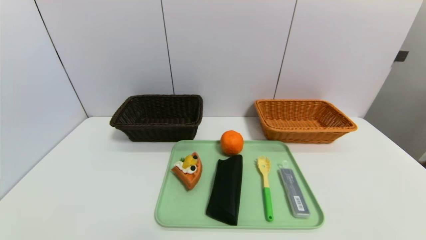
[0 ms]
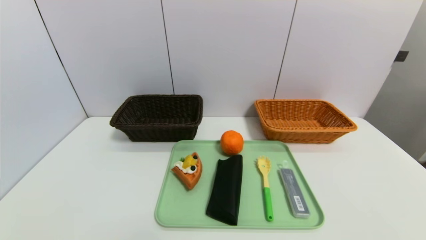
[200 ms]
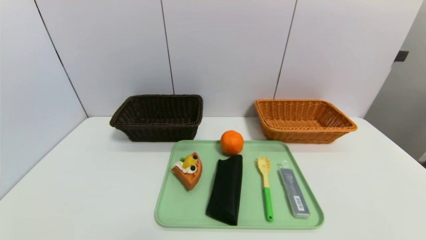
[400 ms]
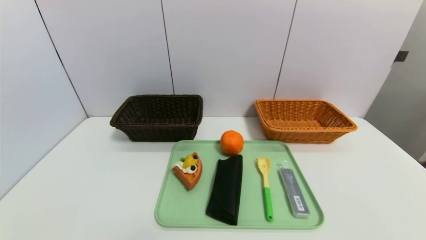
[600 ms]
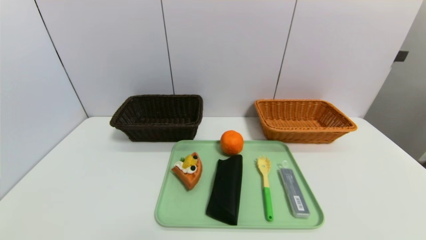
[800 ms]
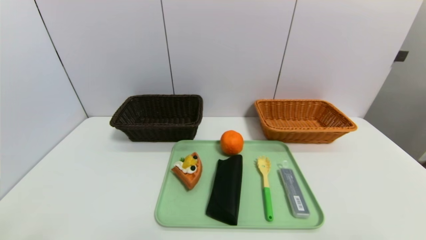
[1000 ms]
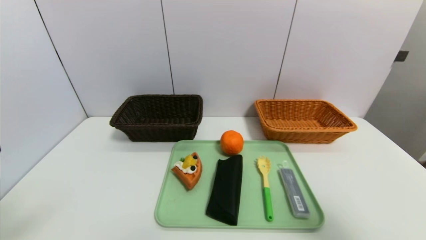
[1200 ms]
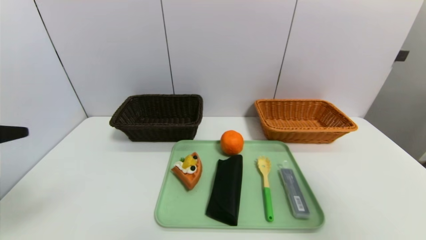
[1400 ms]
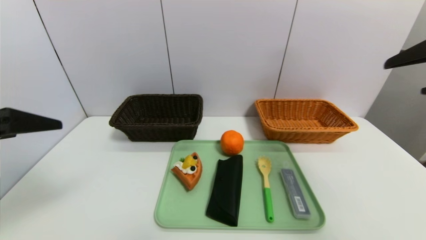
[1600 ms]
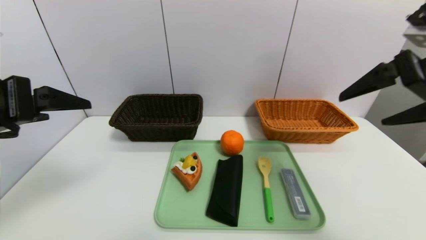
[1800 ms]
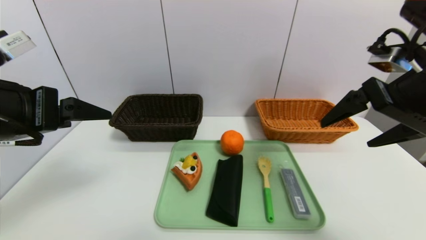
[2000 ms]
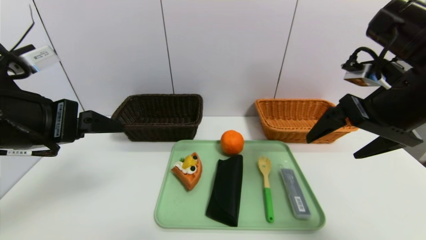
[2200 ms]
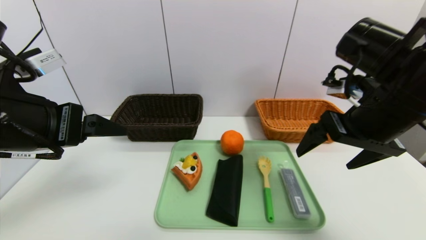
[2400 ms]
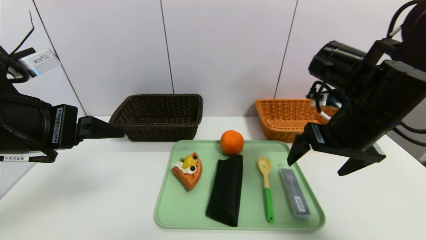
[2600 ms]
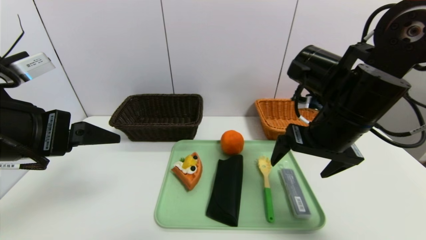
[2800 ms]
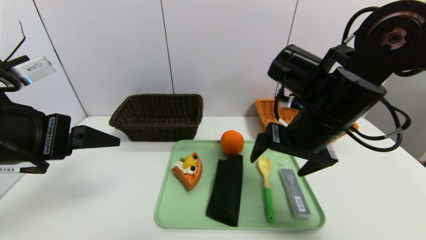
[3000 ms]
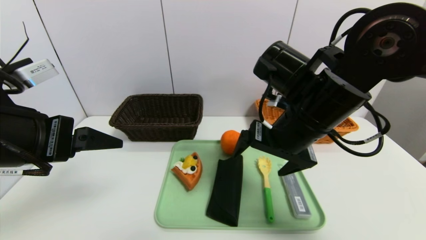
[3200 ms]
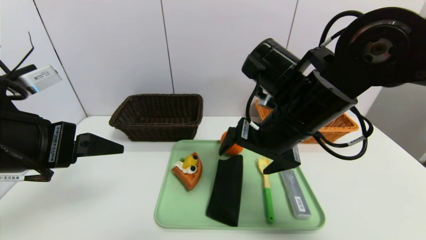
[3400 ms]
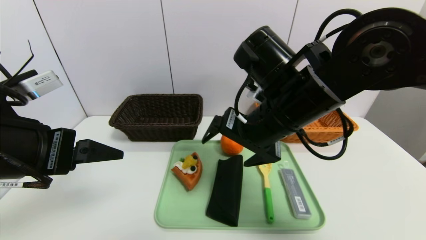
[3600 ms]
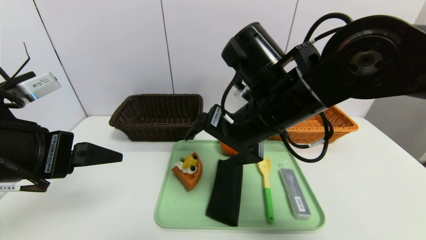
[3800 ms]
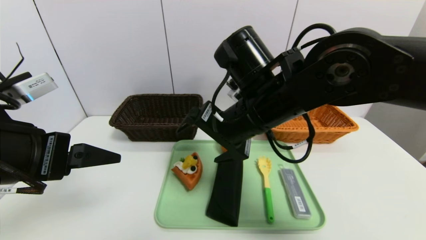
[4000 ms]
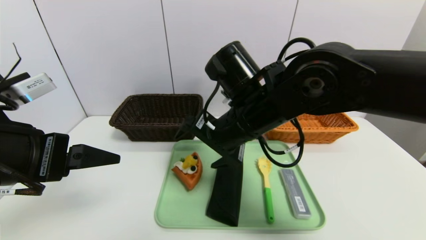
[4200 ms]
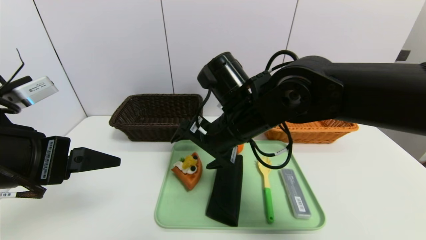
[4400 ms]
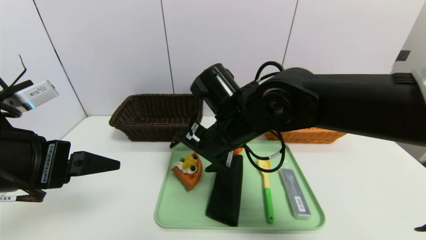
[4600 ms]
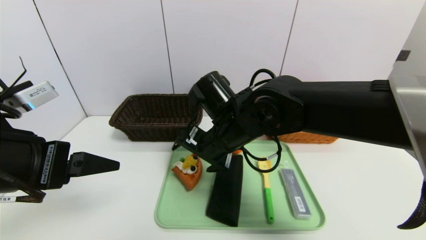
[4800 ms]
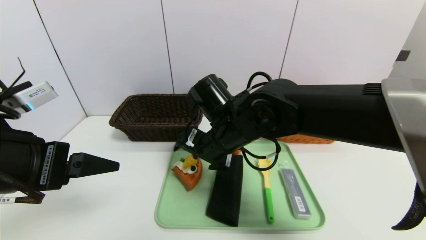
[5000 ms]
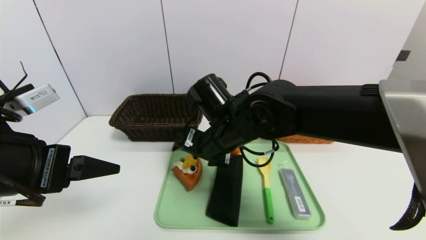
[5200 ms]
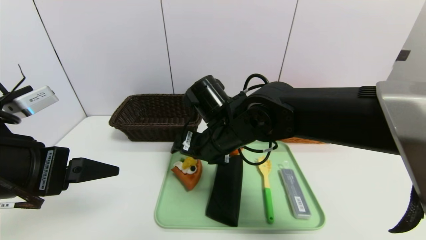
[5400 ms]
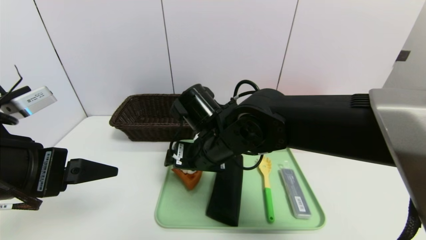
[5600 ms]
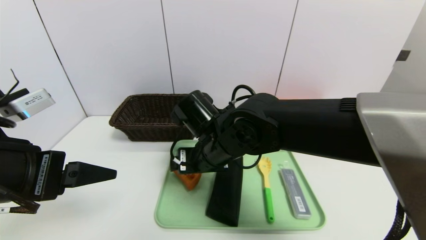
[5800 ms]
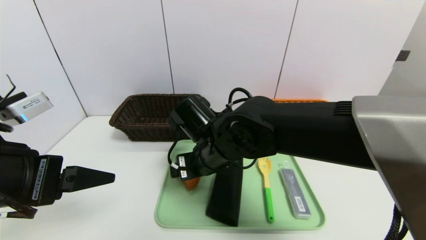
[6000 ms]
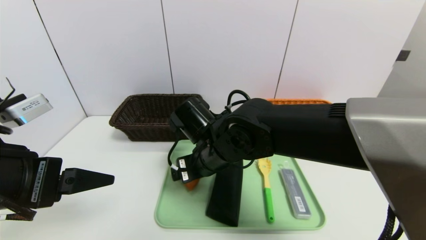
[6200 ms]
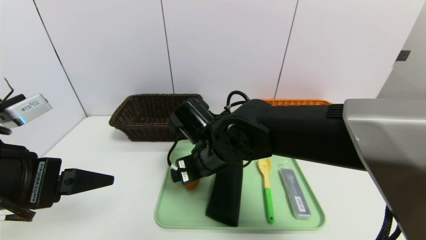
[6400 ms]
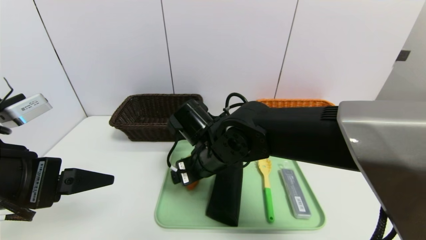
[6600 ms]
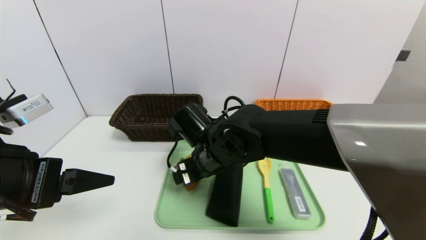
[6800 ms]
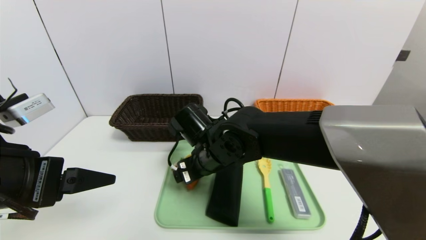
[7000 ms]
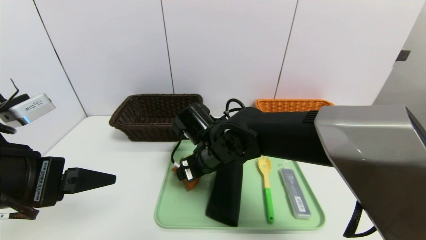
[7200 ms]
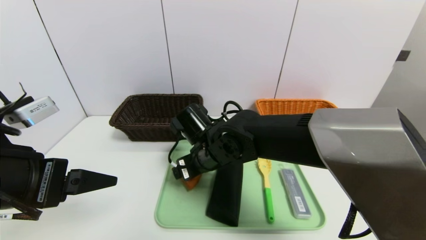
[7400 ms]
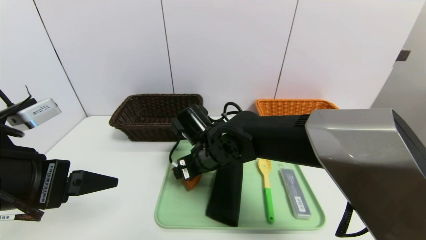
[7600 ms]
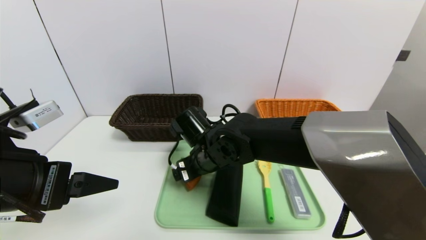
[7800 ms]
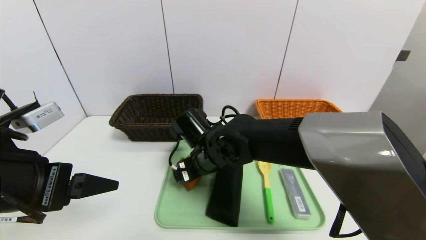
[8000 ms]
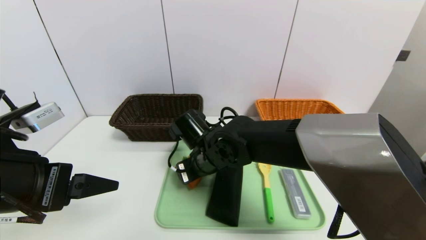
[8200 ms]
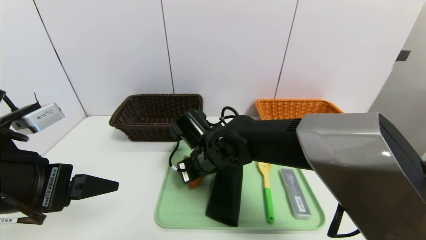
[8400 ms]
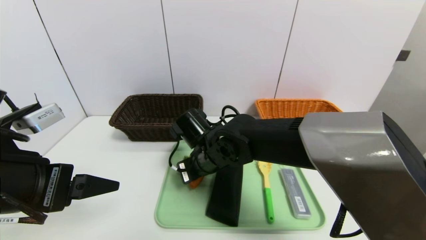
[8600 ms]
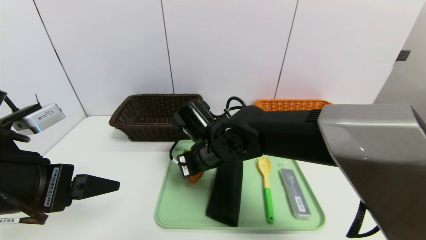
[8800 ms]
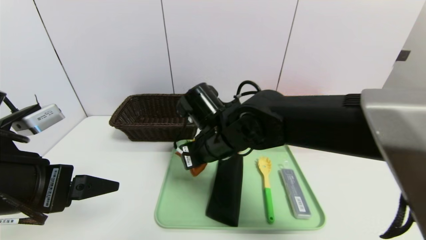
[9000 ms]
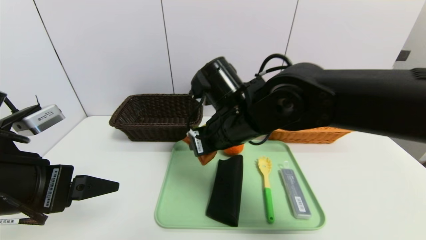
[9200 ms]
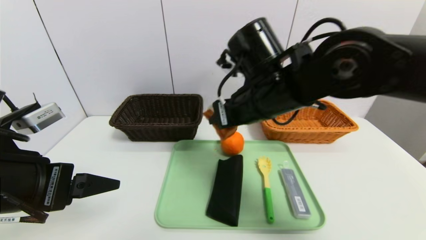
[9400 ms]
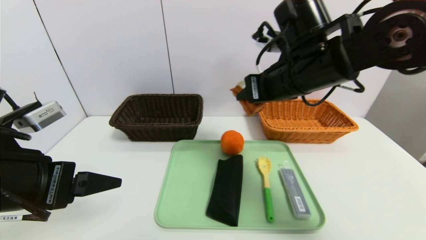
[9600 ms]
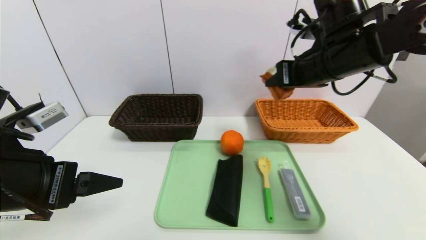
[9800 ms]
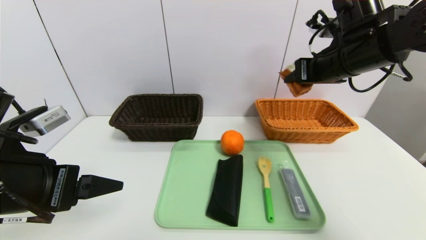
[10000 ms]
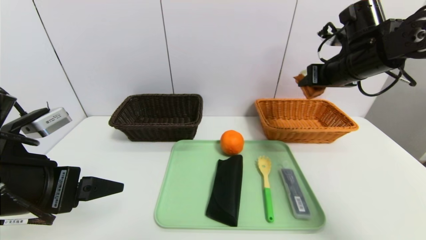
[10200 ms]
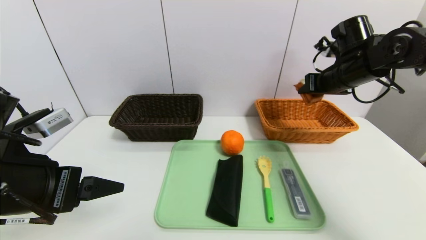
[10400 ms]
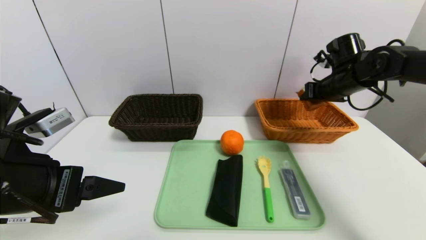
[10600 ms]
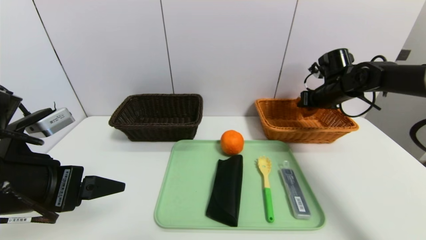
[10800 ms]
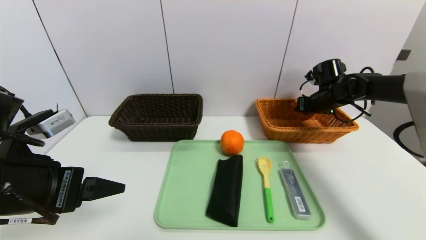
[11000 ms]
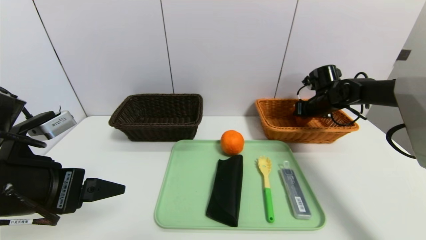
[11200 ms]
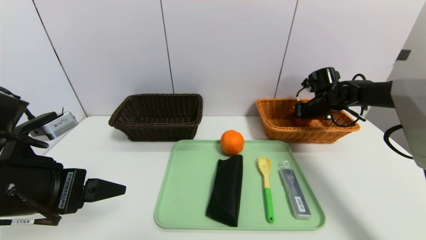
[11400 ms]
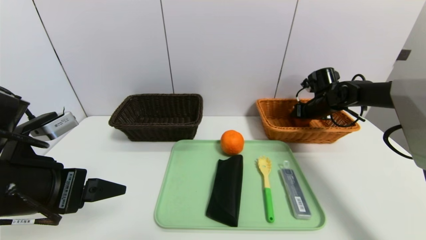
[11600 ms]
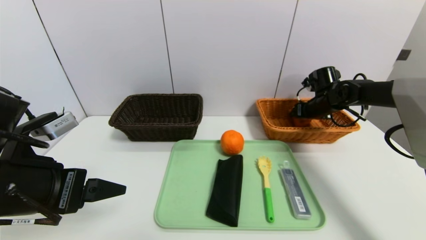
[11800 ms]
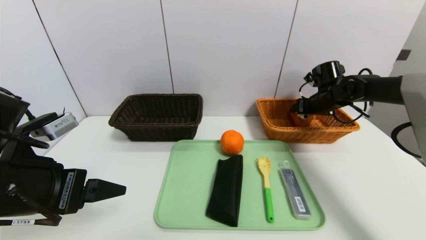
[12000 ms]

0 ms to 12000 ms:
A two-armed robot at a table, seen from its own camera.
Task of the whole recording: place the food in the right basket with the right gripper, and place the non food items in the left basket with the left gripper.
0 ms to 1600 ms: Both grippers move upward and forward, approximately 30 cm.
1600 ms to 3000 ms: The right gripper shifts about 20 cm to the left, downward and forward; the left gripper moves approximately 5 cm.
3000 ms to 4400 ms: The right gripper goes about 10 cm to the left.
4400 ms to 6000 ms: The right gripper heads downward, covering about 5 cm.
6000 ms to 7600 ms: The grippers make only small movements.
7600 ms to 9000 ms: The right gripper ends up roughly 5 cm from where it was, and closes up.
9000 ms to 10400 ms: The right gripper travels to the right by some 30 cm.
10400 ms to 12000 ms: The right gripper shifts approximately 15 cm downward and forward, and opens up.

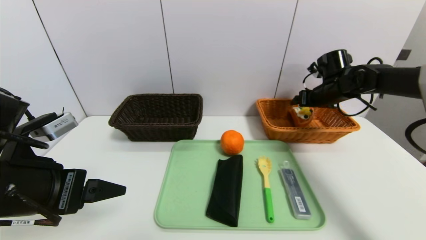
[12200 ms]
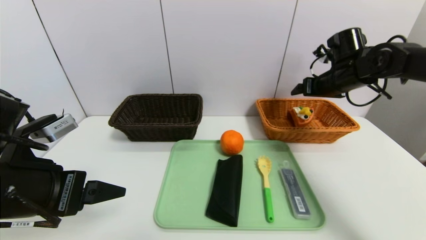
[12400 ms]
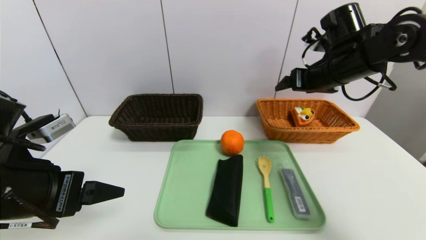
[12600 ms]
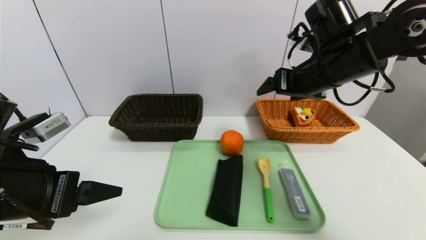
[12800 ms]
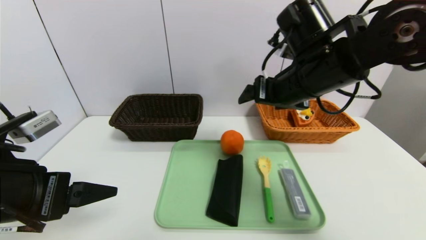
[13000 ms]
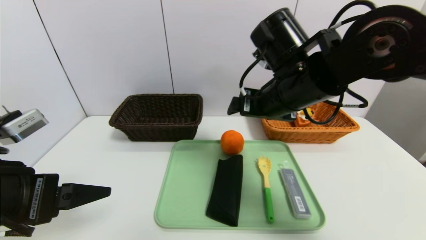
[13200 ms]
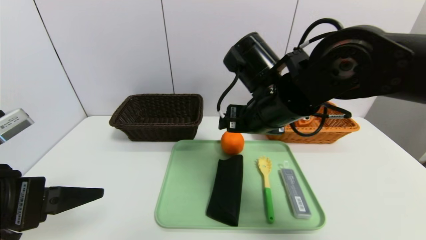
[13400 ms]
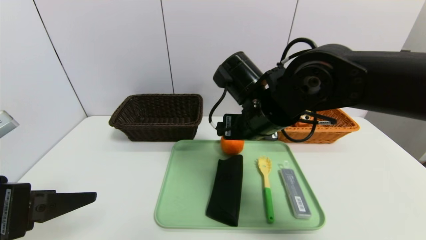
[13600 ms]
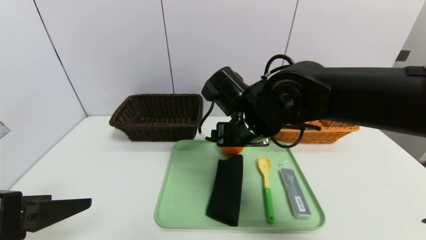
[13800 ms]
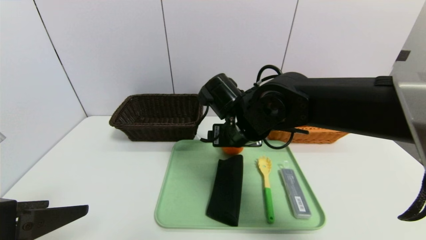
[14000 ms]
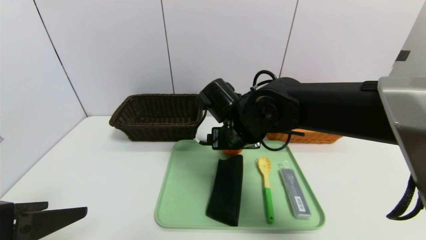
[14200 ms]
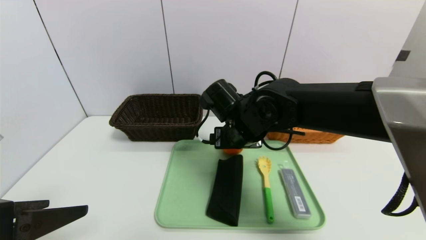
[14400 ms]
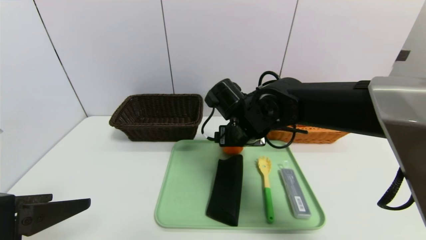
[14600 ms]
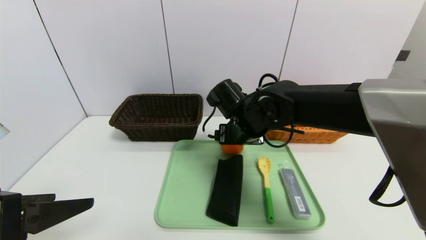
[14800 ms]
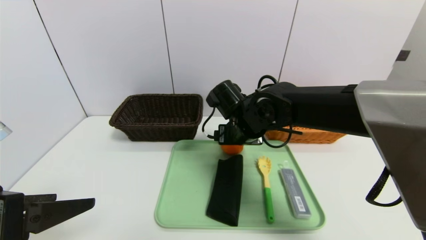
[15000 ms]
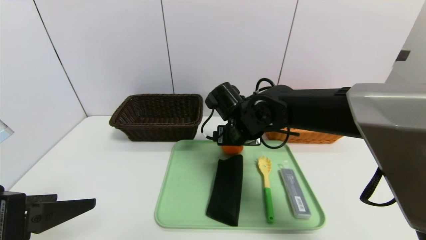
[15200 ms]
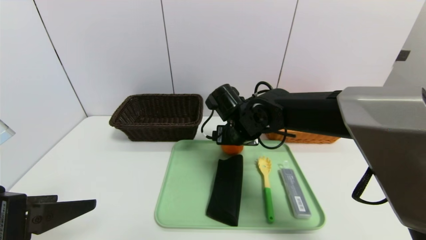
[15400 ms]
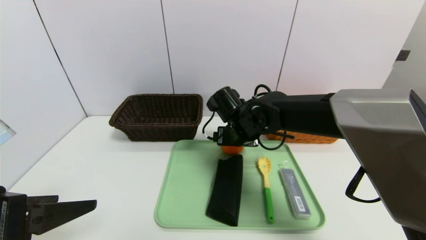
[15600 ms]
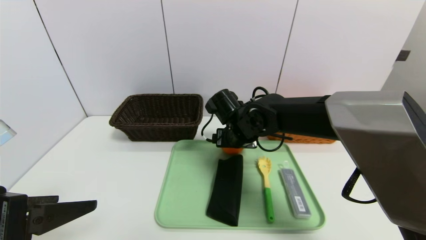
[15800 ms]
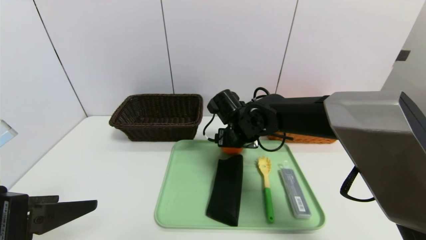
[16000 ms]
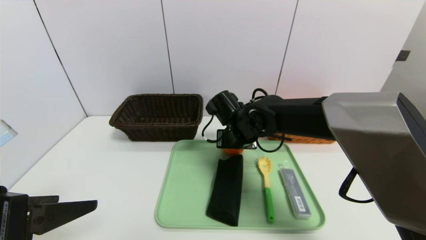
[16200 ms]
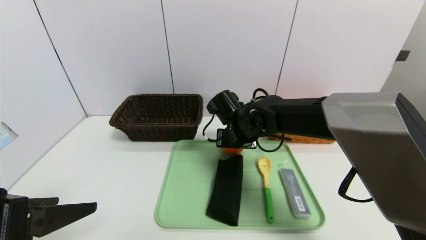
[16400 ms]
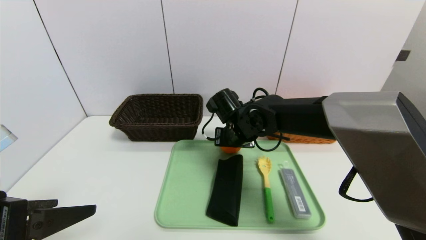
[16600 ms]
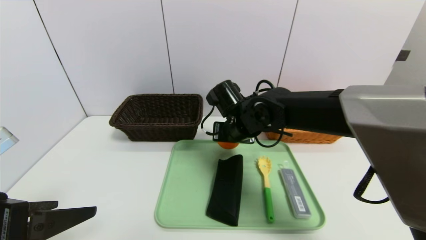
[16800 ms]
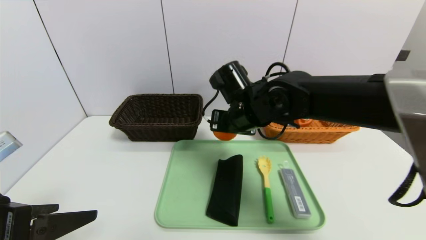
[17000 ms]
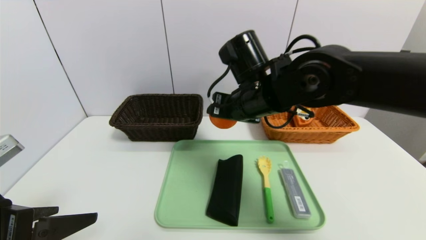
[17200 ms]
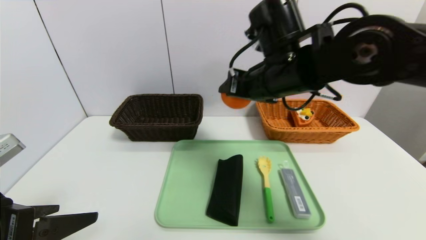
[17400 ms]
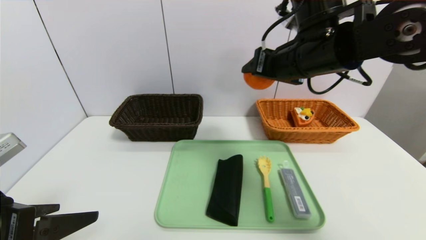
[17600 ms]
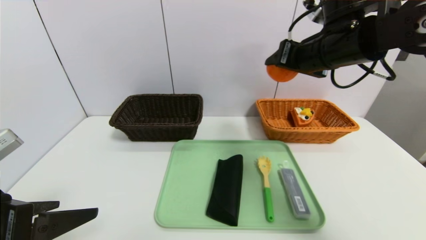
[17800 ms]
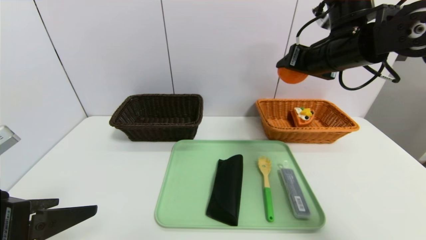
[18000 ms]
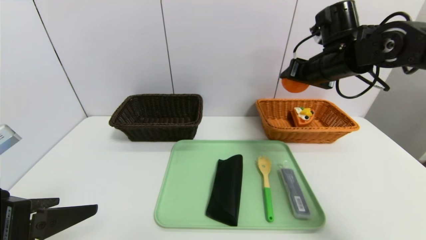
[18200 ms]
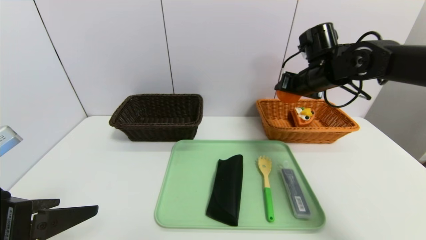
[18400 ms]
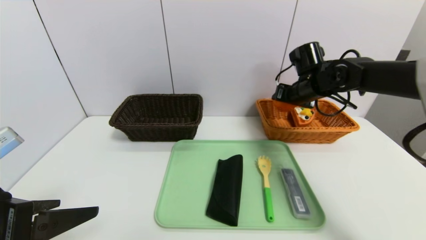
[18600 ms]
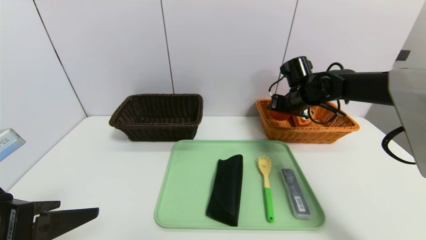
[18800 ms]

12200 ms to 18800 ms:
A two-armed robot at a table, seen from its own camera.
Task of the whole recording: place the food in the right basket with the right gripper, and place the non food items in the left basket with the left gripper.
12200 ms to 13800 ms: The left gripper shifts roughly 5 cm backward. The right gripper moves to the left and backward, some 30 cm.
13800 ms to 15400 ms: The right gripper goes about 10 cm forward and downward.
15400 ms to 17200 ms: The right gripper travels upward and backward by about 10 cm, and closes.
17200 ms to 18800 ms: The right gripper shifts some 25 cm to the right, forward and downward.
